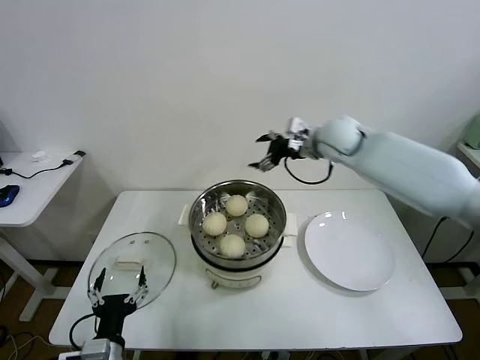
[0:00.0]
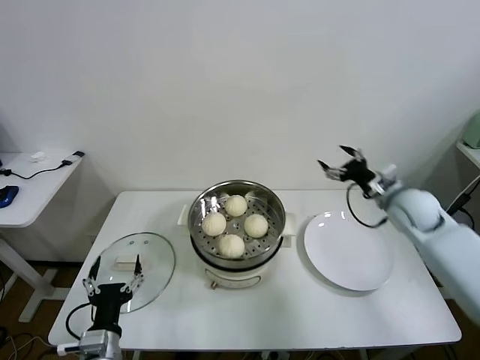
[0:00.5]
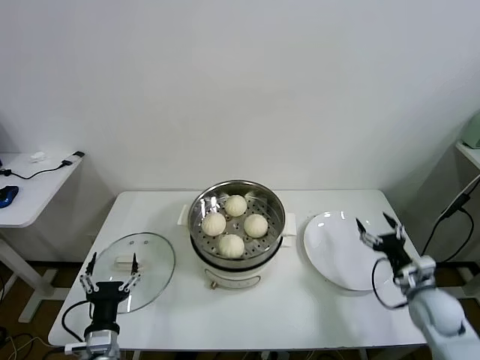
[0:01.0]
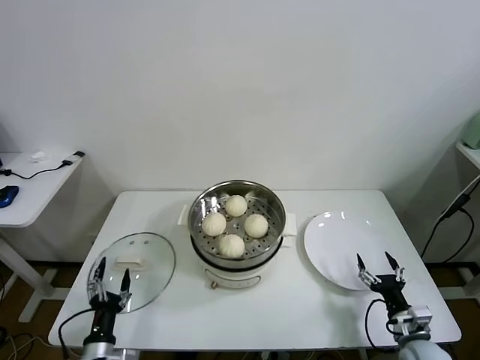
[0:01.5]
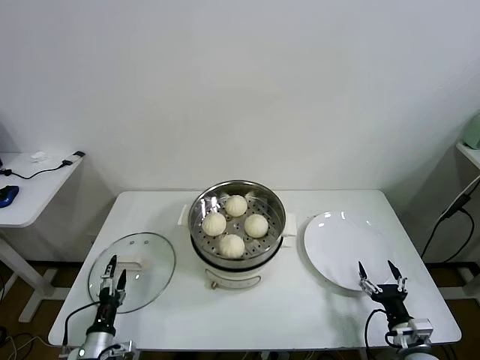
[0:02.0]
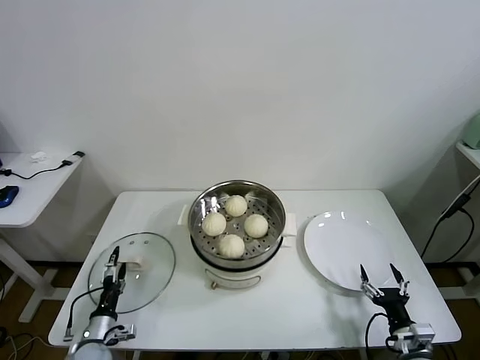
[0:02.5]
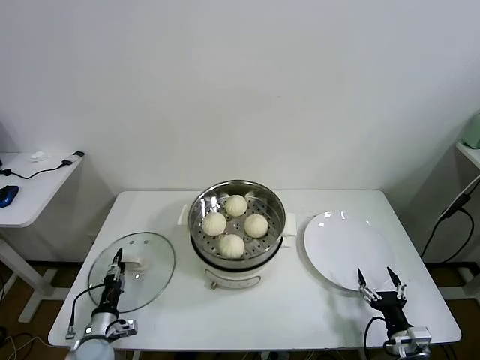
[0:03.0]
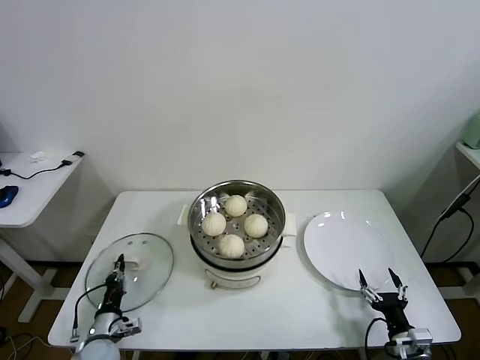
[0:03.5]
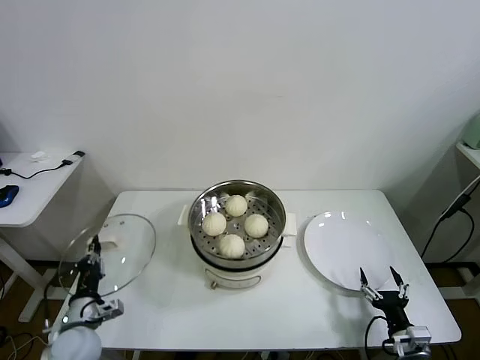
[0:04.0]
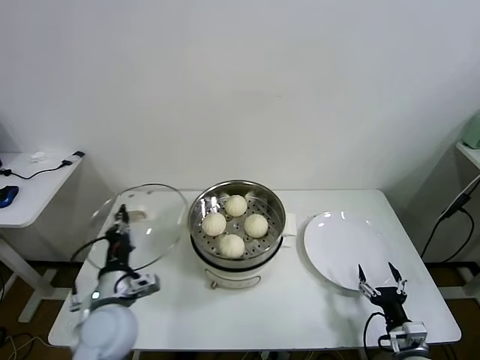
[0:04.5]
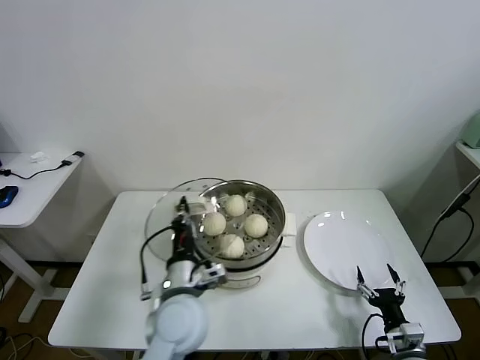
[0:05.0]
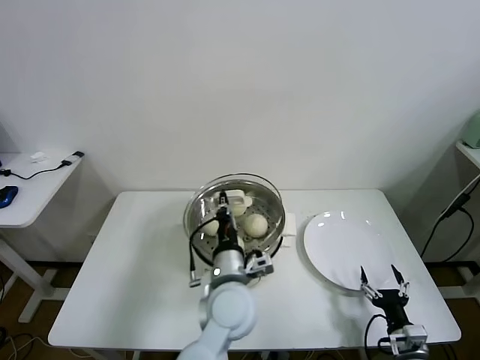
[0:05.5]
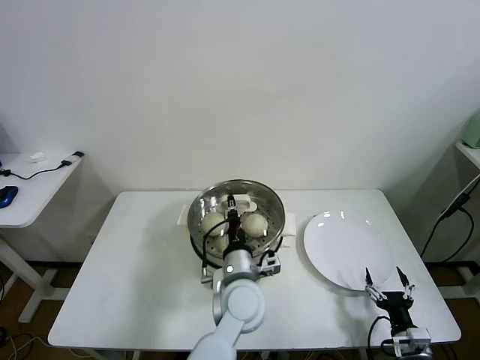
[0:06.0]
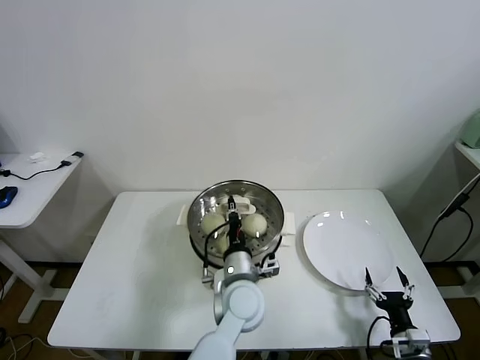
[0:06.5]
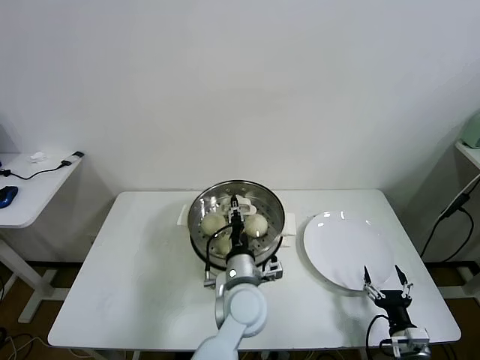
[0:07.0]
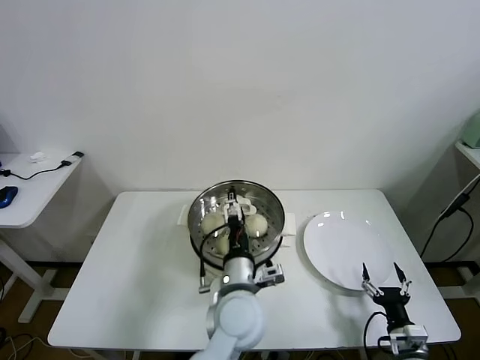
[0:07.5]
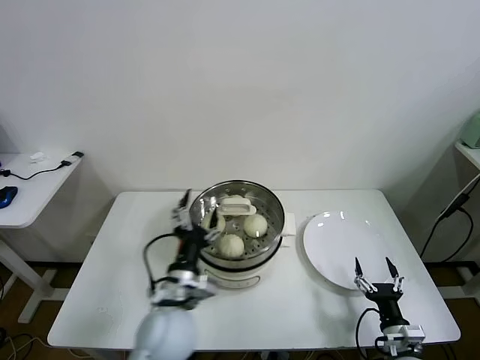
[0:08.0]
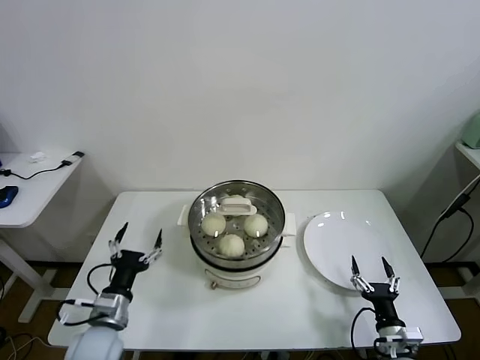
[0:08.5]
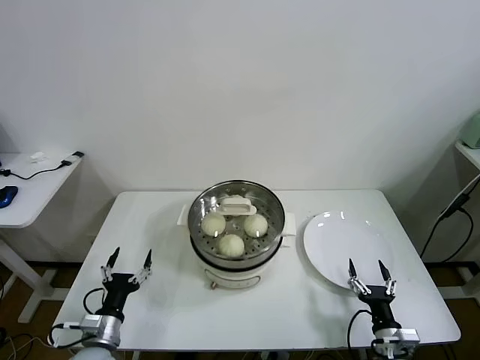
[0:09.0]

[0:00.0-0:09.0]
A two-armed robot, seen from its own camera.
Task of the whole recording: take steamed baozi put them in steamer.
Step, 0:00.0 to 0:03.0: Grasp the pot lid with left gripper.
Step, 0:03.5 to 0:07.0: Place the pot lid on the steamer with left gripper.
0:00.0 to 0:02.0: The right gripper travels backward, downward and to the right by roughly 50 cm, while the left gripper is displaced downward and to the left by roughly 15 cm.
0:02.0 to 0:04.5: The left gripper moves upward and to the right, roughly 20 cm, and closes.
0:04.5 to 0:07.0: The left gripper shifts about 25 cm to the right.
0:07.0 to 0:09.0: The left gripper goes about 30 cm to the left, and opens.
